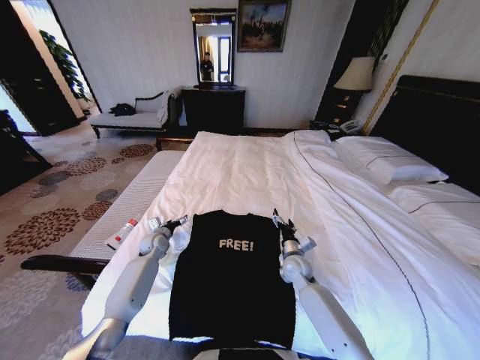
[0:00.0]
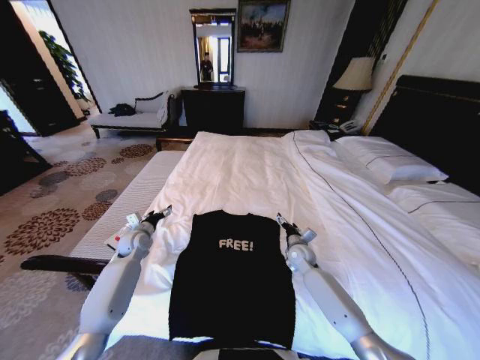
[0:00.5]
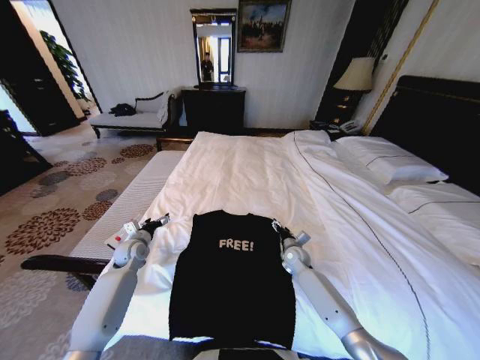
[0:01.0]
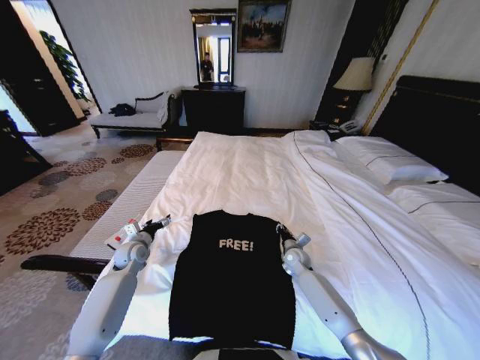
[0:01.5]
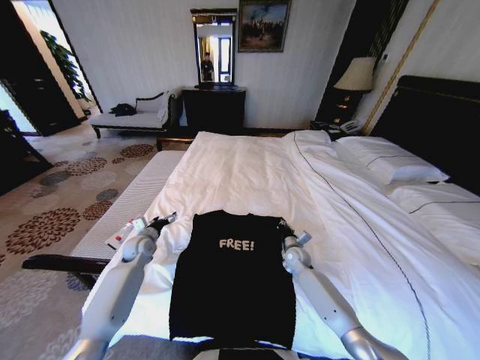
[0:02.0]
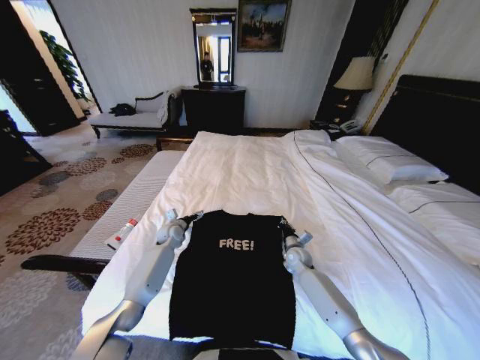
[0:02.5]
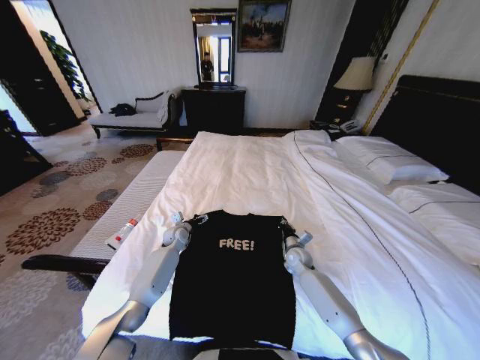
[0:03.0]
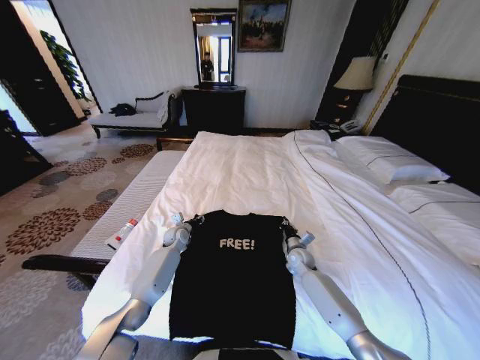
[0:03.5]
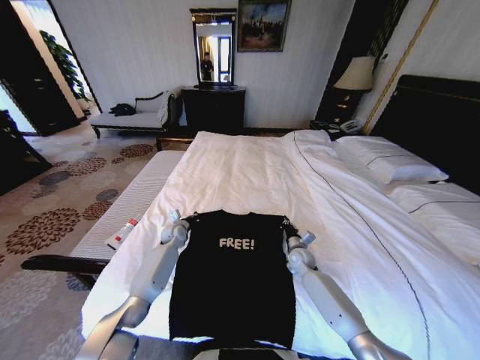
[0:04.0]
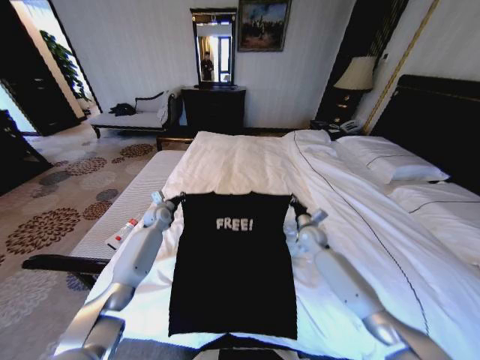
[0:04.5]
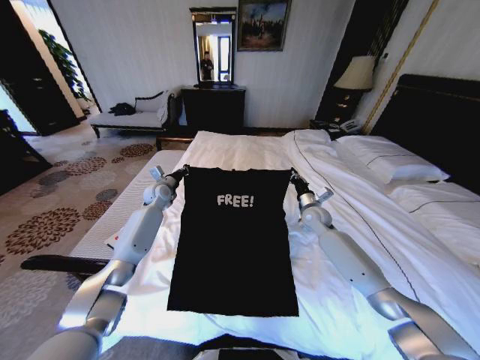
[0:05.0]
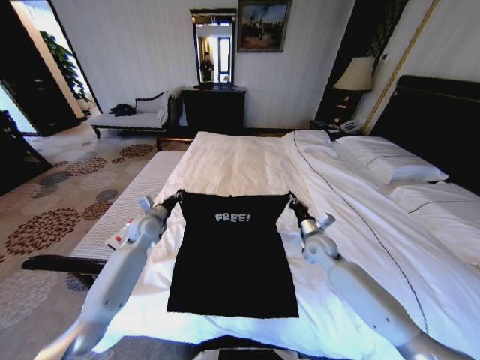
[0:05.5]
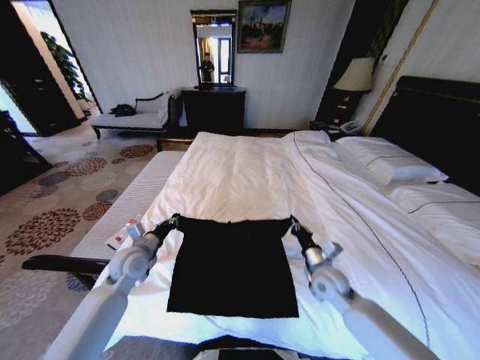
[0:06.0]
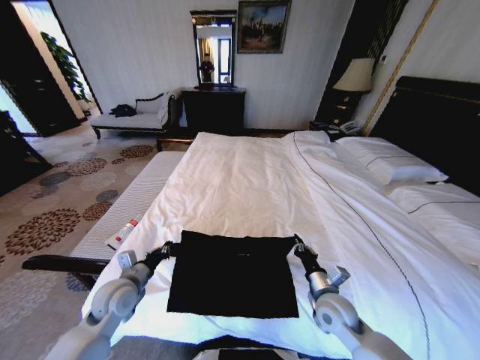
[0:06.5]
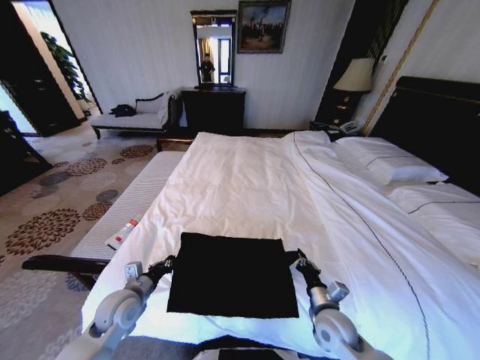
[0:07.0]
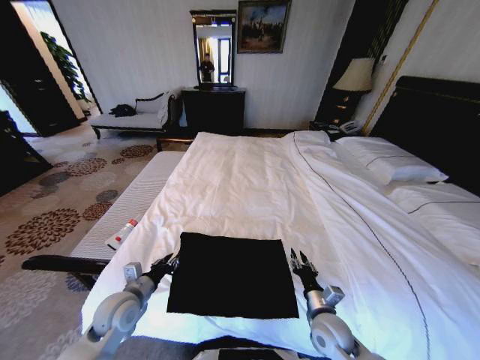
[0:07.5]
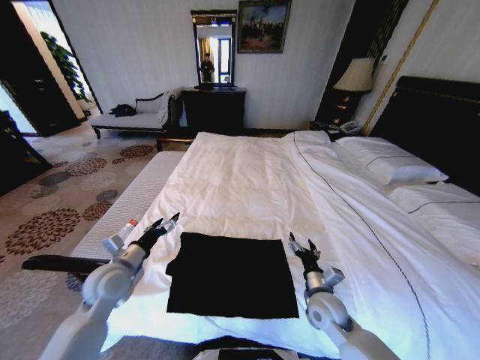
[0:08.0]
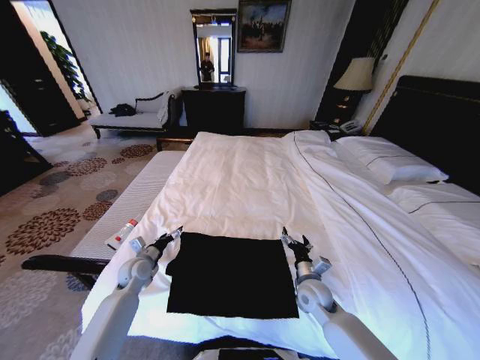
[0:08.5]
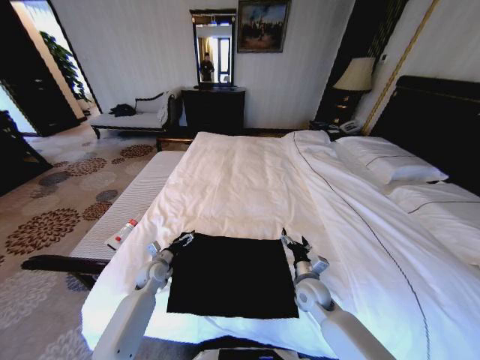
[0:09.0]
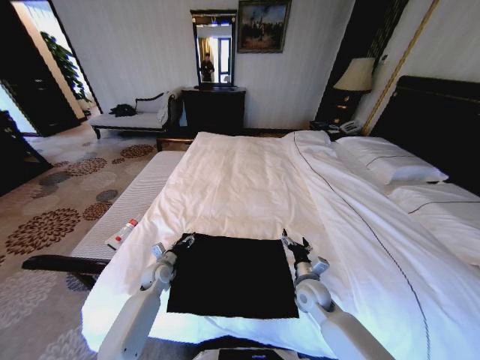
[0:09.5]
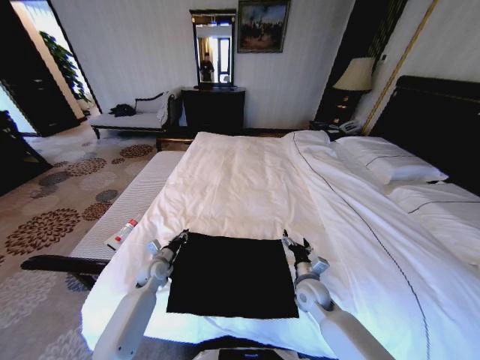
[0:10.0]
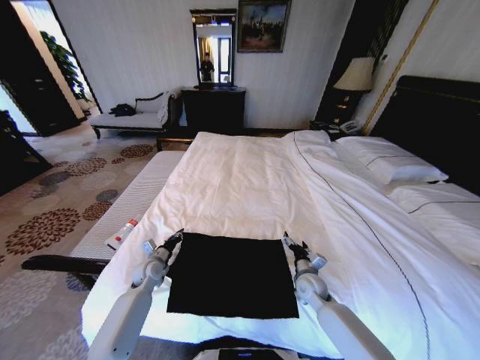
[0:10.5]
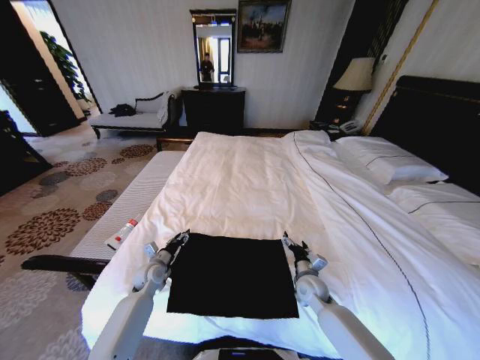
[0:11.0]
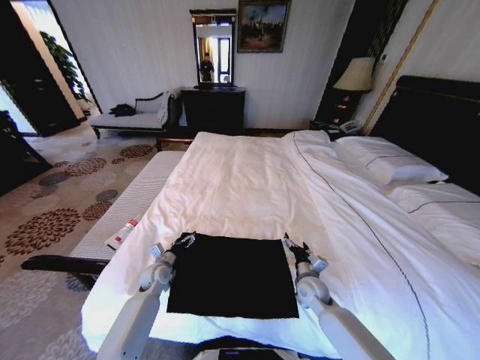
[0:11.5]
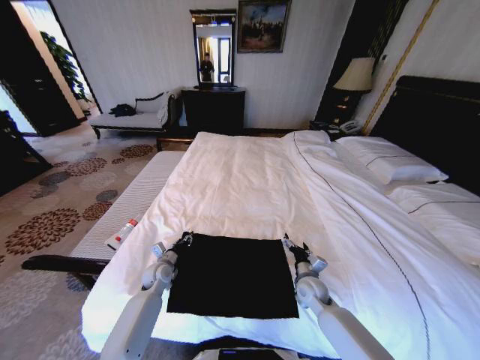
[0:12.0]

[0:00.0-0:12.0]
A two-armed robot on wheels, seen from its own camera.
Task of the whole recording: Fold the clothes on the bed.
0:00.0 to 0:02.0: The left gripper moves some 5 cm, while the right gripper goes approximately 5 cm forward, and closes.
0:02.0 to 0:04.0: The left gripper moves to the right and forward, roughly 10 cm, and closes its fingers.
0:04.0 to 0:06.0: The two grippers go roughly 20 cm backward and upward.
0:06.0 to 0:08.0: The right gripper opens up, while the left gripper opens.
0:08.0 to 0:10.0: The right gripper shifts by about 5 cm. Meanwhile the left gripper travels downward and forward by approximately 15 cm, and closes.
0:10.0 to 0:12.0: The left gripper opens, then closes again.

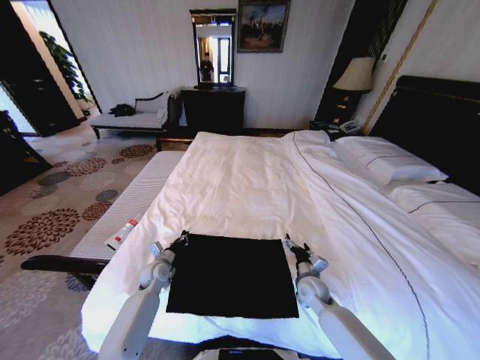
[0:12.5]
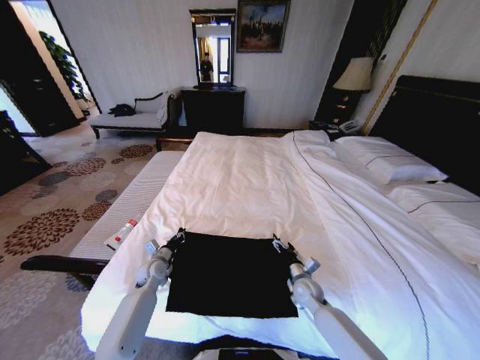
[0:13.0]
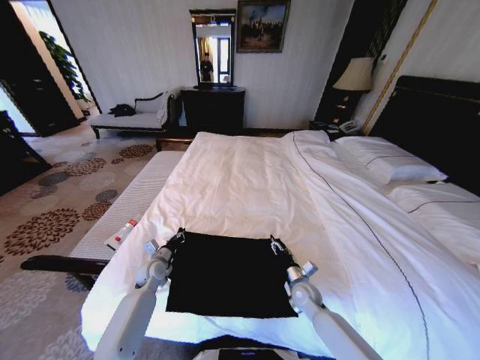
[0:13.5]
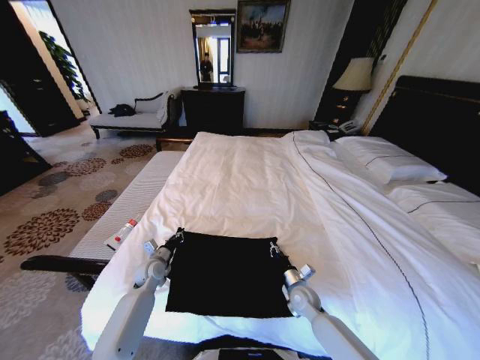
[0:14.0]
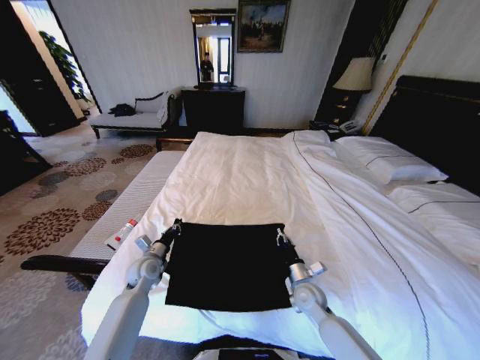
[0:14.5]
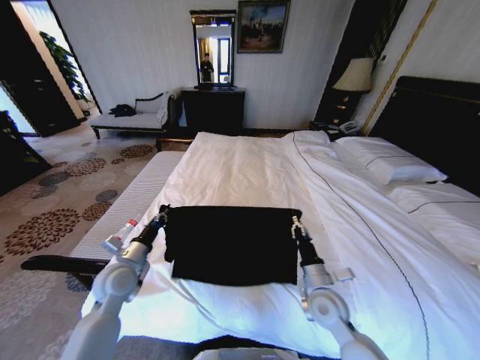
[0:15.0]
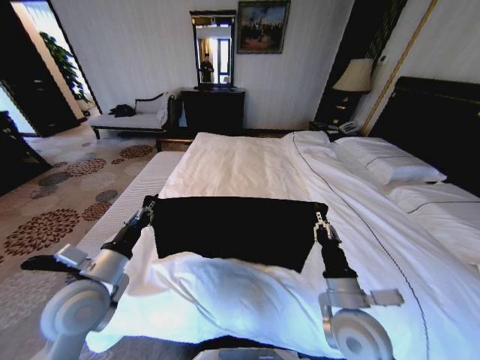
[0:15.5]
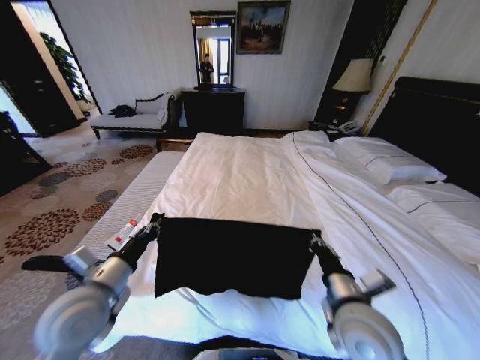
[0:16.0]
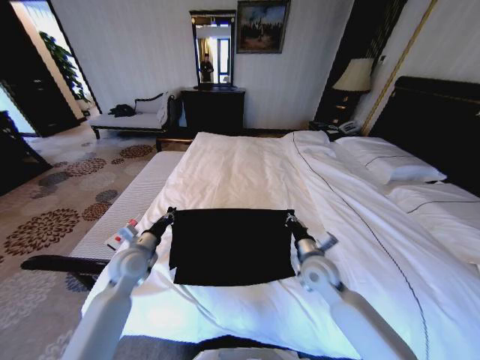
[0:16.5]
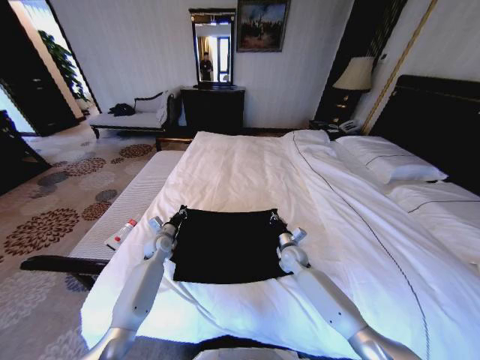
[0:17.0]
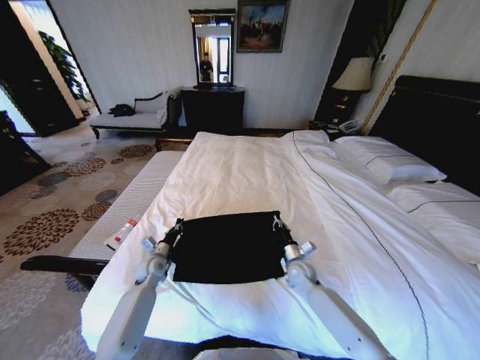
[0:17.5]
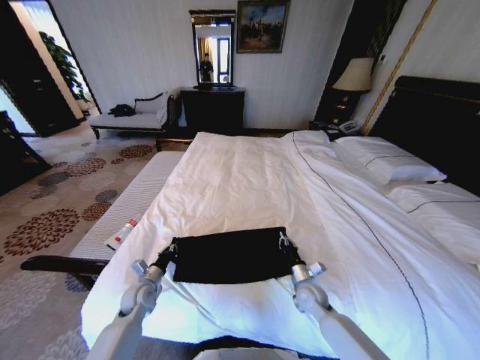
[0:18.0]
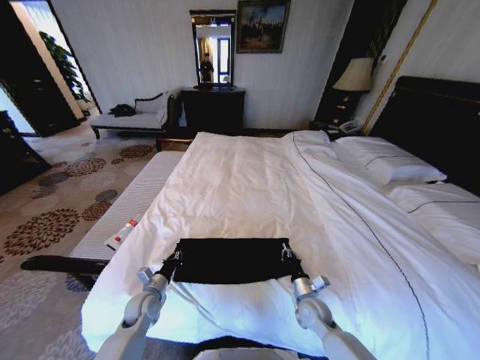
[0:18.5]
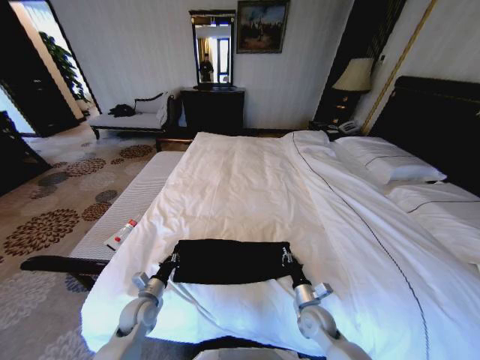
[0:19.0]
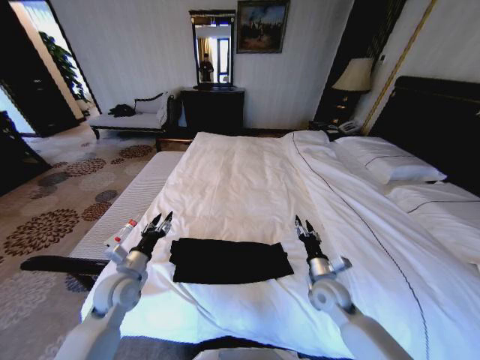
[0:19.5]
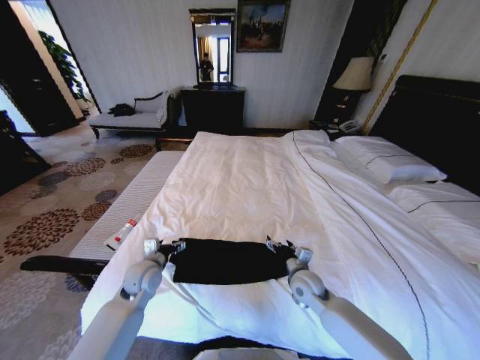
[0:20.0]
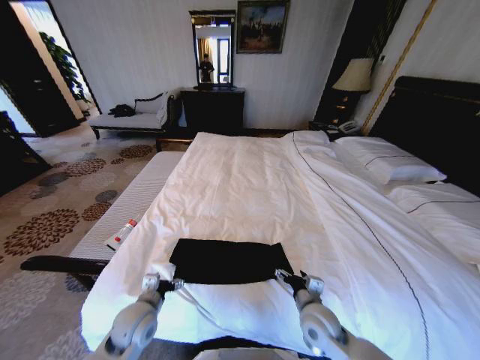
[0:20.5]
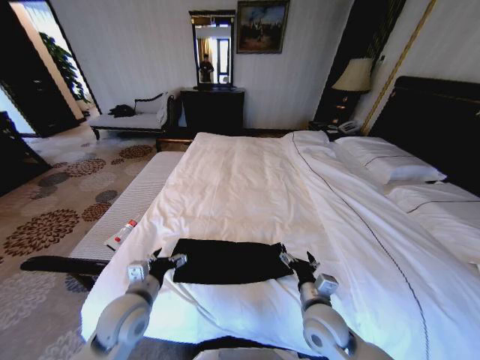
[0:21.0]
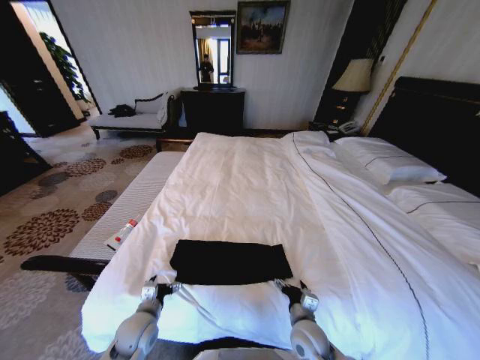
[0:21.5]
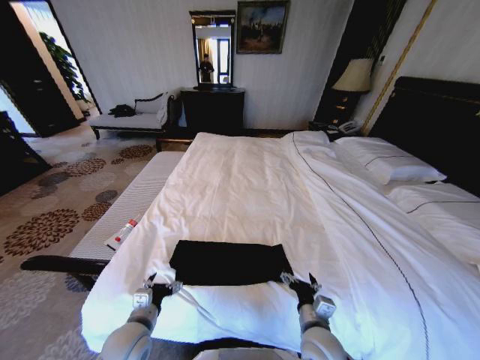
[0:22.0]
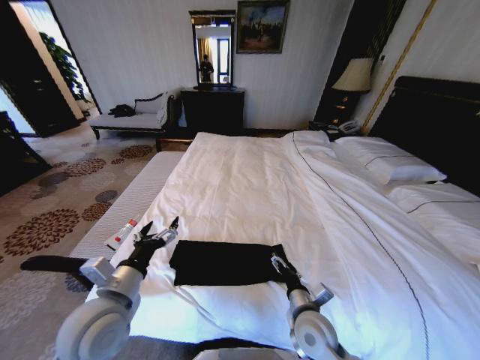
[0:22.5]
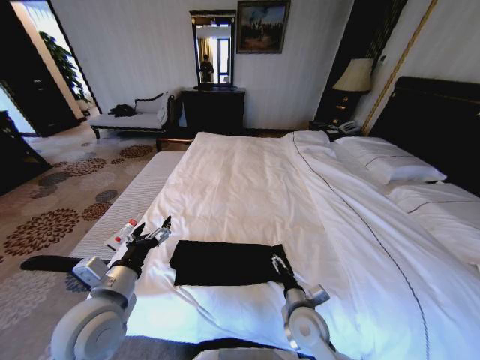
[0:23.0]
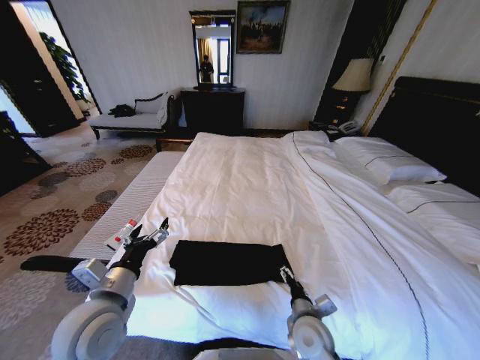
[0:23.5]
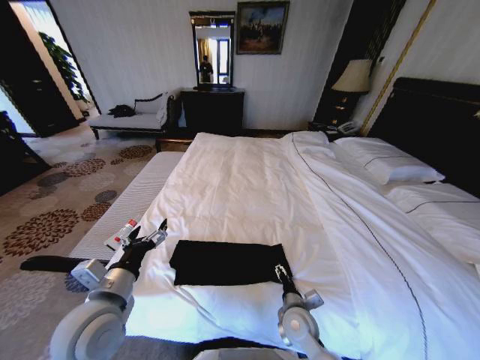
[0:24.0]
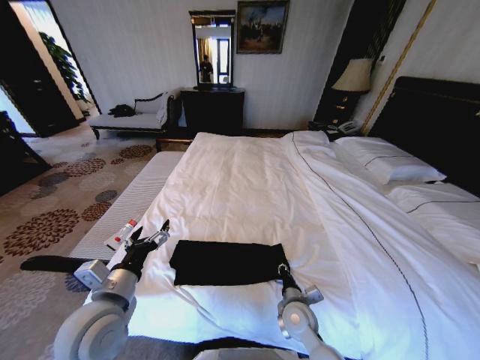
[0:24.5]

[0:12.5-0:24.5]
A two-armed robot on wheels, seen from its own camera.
Task of the whole recording: Fold the clothes on the bed.
0:12.5 to 0:14.5: The left gripper is displaced upward by some 5 cm. Meanwhile the right gripper closes.
0:14.5 to 0:16.5: Both grippers travel together upward, approximately 10 cm.
0:16.5 to 0:18.5: Both grippers travel together downward and backward, roughly 15 cm.
0:18.5 to 0:20.5: The right gripper heads upward, covering roughly 10 cm, and opens up. Meanwhile the left gripper heads upward and backward, covering some 10 cm, and opens up.
0:20.5 to 0:22.5: The left gripper moves up and down over roughly 20 cm, changing direction 2 times. The right gripper goes downward and returns, roughly 5 cm each way.
0:22.5 to 0:24.5: The right gripper moves downward, about 5 cm, and closes.

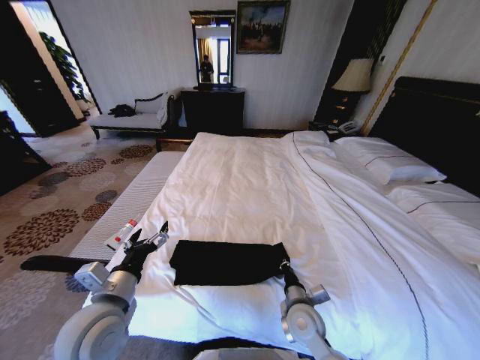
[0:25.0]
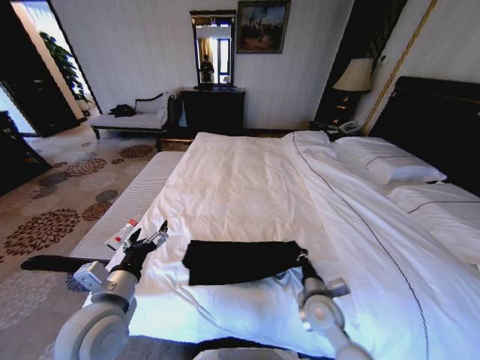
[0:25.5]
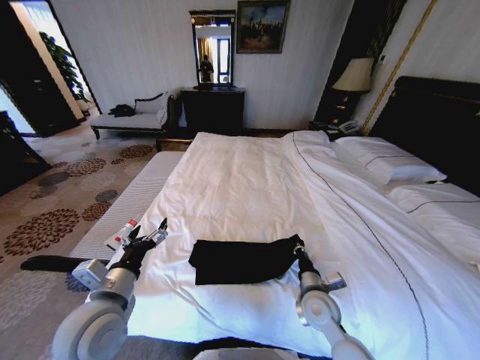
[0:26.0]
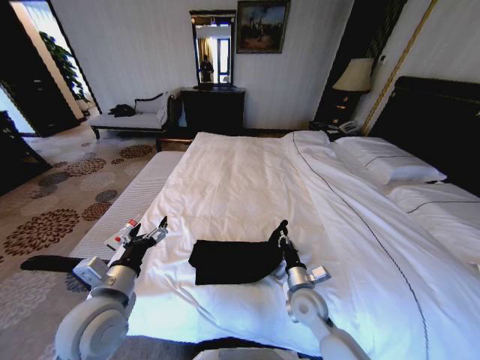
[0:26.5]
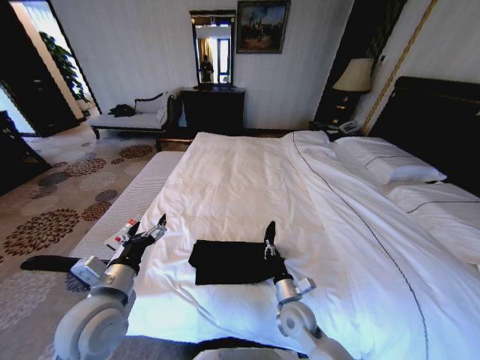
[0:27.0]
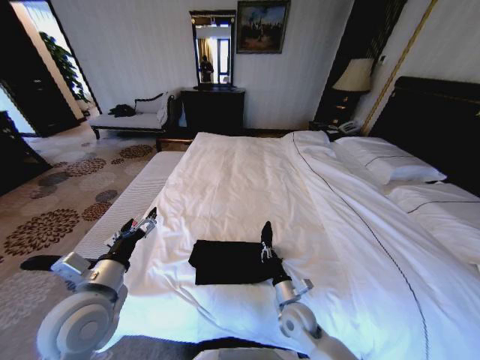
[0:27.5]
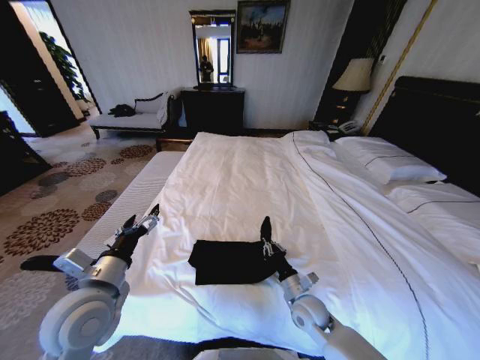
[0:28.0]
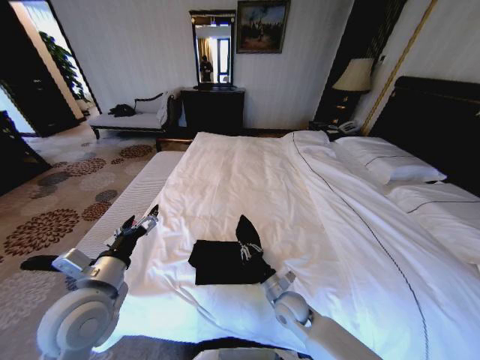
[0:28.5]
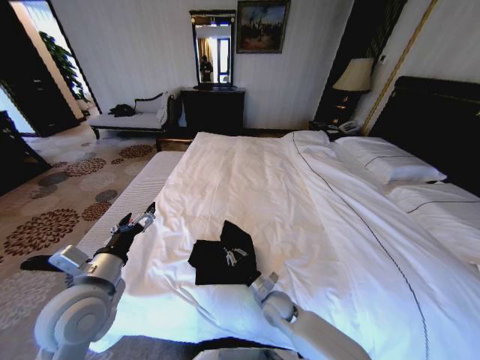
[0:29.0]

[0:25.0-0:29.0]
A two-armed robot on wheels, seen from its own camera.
Task of the whole recording: Fold the clothes on the bed.
0:27.0 to 0:29.0: The right gripper ends up approximately 5 cm from where it was.
